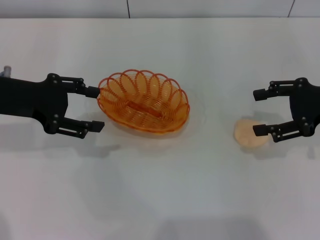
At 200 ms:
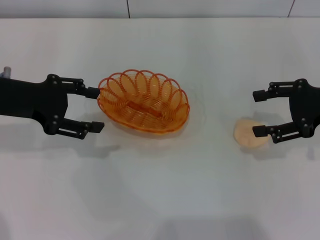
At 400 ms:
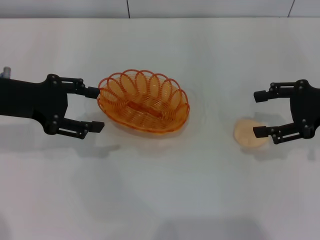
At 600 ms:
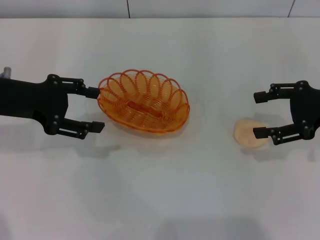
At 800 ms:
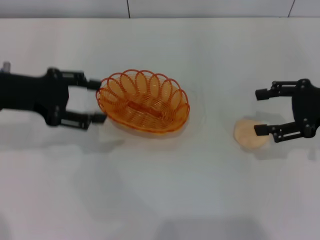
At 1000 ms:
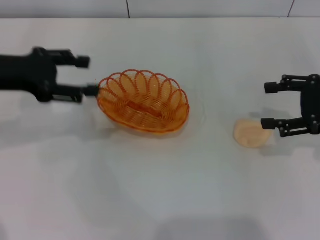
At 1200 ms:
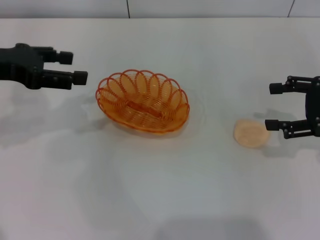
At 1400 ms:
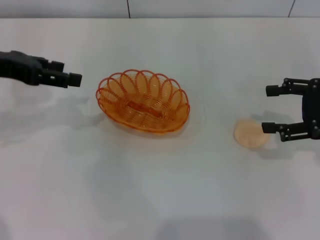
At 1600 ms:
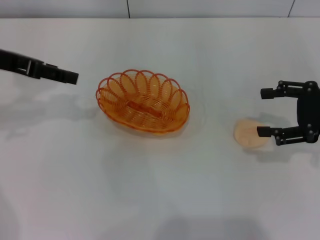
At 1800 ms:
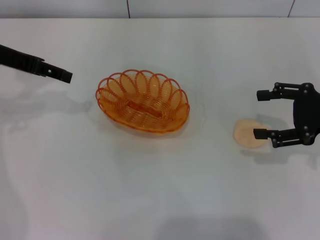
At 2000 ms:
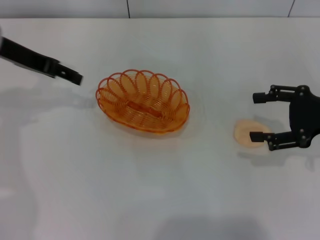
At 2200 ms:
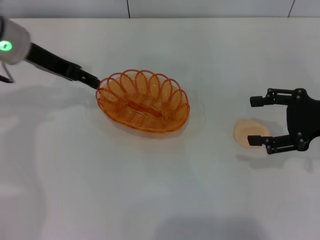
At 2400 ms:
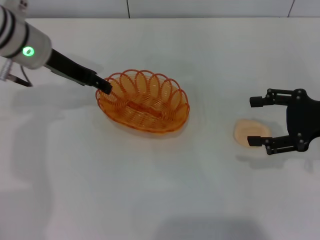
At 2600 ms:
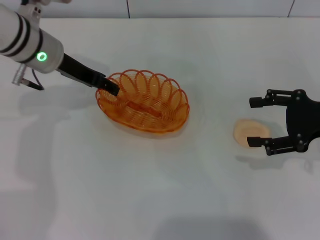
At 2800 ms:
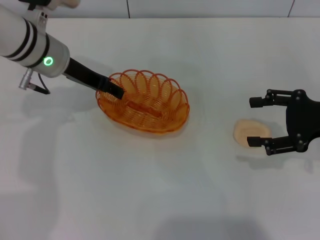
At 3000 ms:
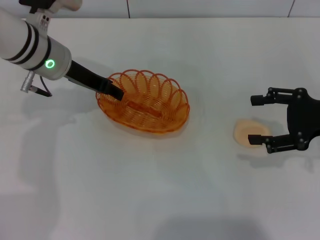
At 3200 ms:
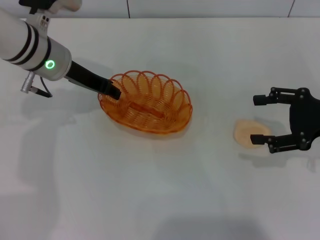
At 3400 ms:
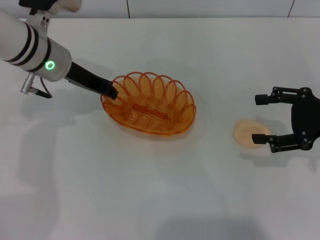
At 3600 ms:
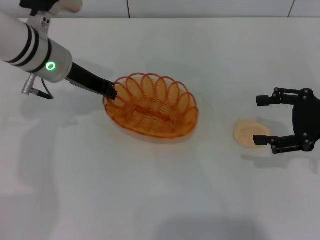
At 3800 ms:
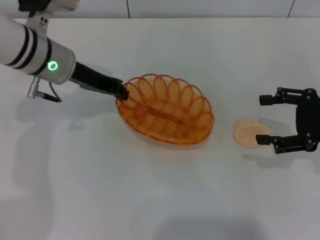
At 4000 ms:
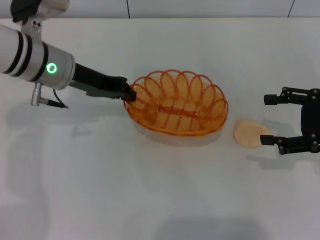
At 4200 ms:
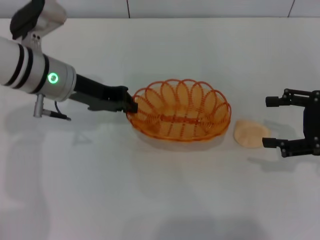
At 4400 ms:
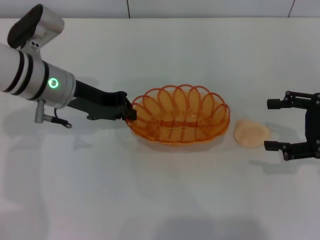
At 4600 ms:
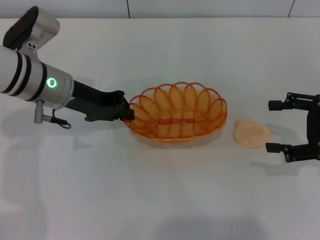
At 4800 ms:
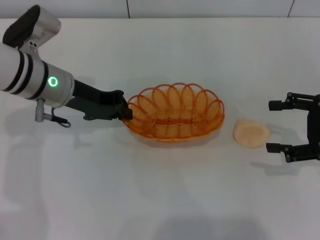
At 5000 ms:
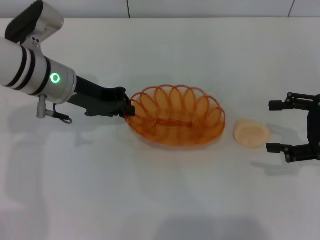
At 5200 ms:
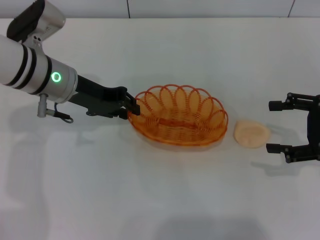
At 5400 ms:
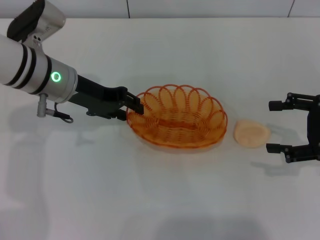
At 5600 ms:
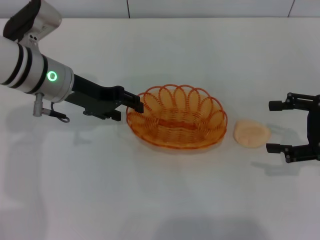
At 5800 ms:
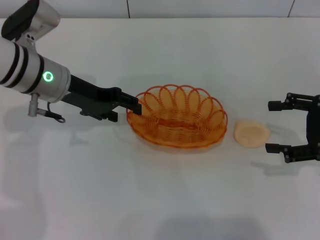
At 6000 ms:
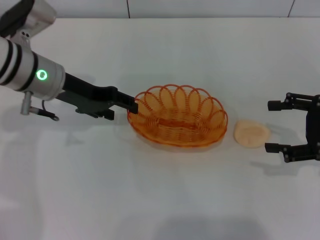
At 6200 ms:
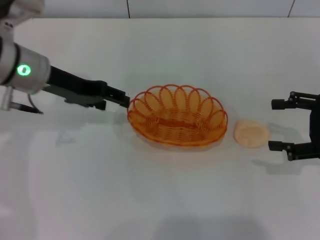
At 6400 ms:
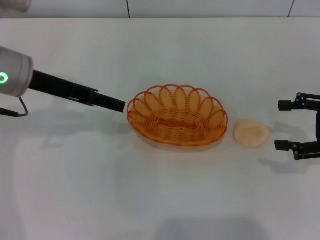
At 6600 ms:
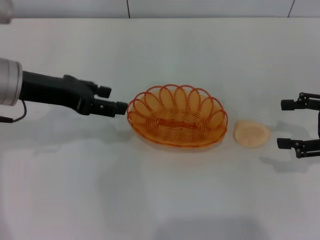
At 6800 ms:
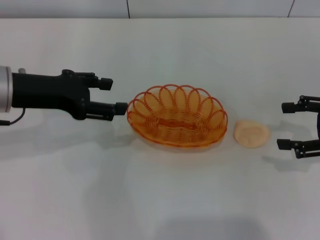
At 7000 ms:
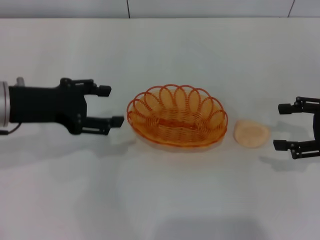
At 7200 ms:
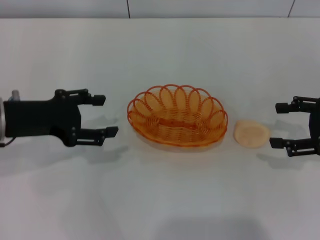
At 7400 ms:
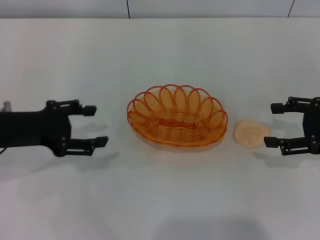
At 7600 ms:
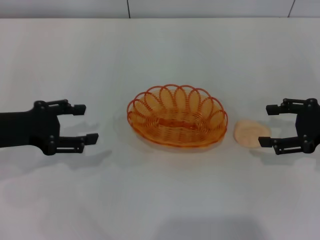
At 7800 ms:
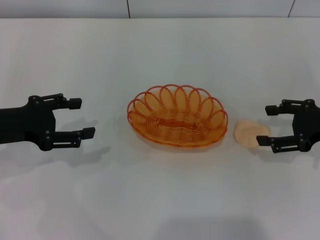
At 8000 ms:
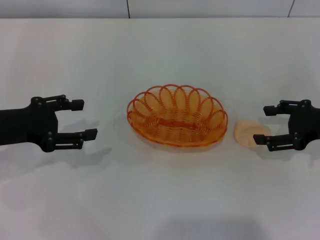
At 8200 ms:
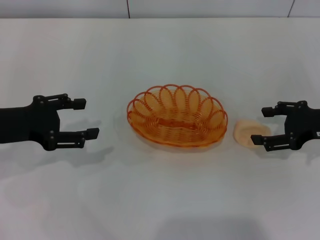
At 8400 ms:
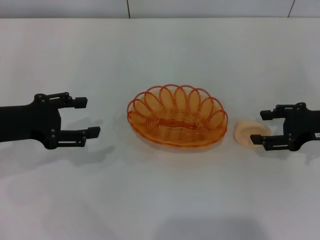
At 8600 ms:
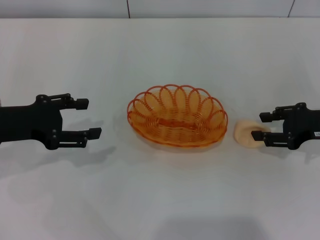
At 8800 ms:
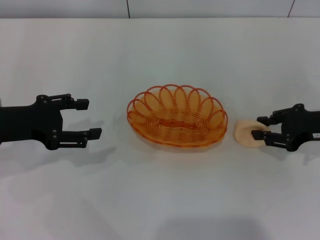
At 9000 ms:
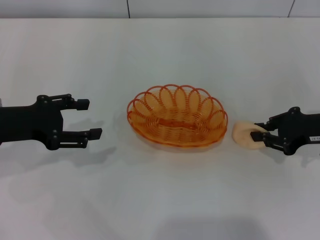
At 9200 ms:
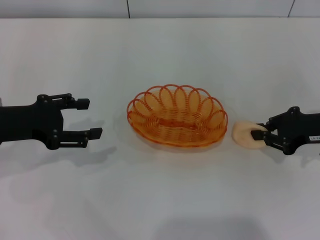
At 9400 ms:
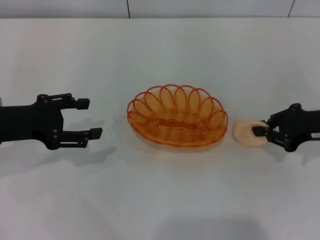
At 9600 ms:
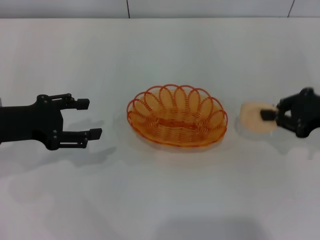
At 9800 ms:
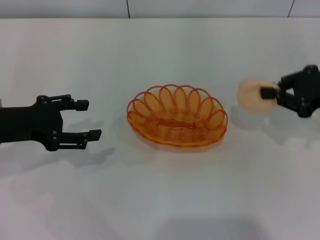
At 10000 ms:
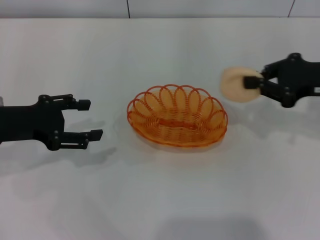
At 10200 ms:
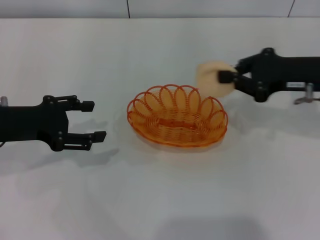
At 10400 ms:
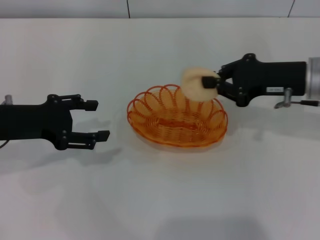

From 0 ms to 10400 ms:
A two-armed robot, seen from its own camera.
Step, from 0 ms to 4200 ms: Pick up the basket with the left gripper.
Step, from 4400 ms to 6400 ms: Place the basket in the center of view with the left gripper.
Step, from 6600 ms to 9800 ms: Pick up the egg yolk pastry with the right gripper.
From 0 ms to 1400 ms: The left gripper changes place by some 5 cm.
From 1400 ms to 3000 ms: The left gripper is displaced to the right, forward and downward by approximately 15 cm.
From 3000 ms to 4400 ms: The left gripper closes its fingers.
From 4400 ms to 6000 ms: The left gripper opens its fingers.
From 6000 ms to 7400 ms: The left gripper travels backward and to the left by approximately 10 cm.
From 7400 ms to 9000 ms: The right gripper closes its fingers.
From 9000 ms to 10400 ms: The right gripper is displaced to the left by about 5 cm.

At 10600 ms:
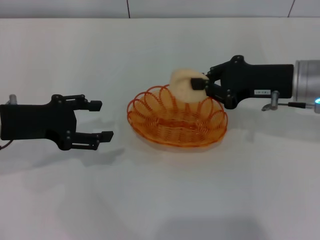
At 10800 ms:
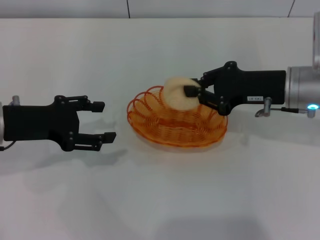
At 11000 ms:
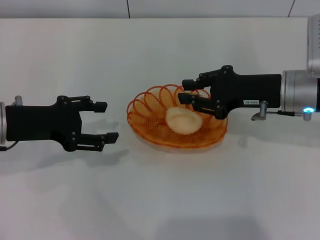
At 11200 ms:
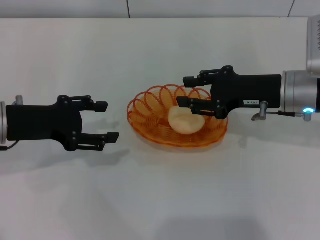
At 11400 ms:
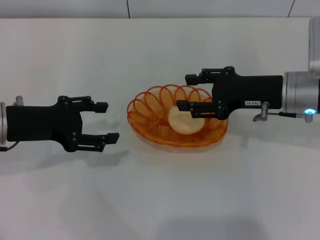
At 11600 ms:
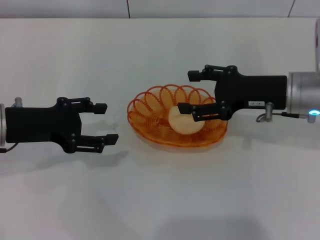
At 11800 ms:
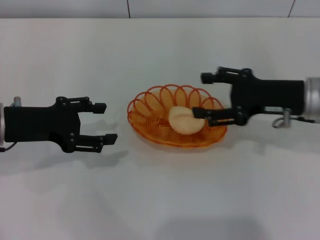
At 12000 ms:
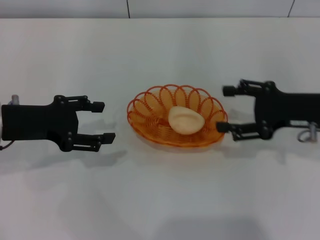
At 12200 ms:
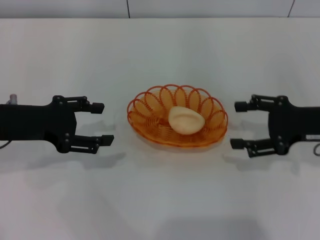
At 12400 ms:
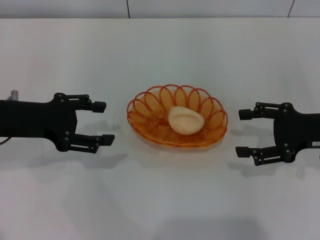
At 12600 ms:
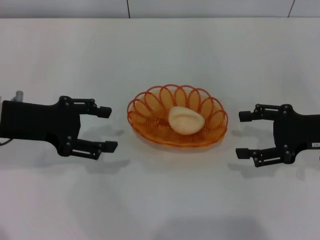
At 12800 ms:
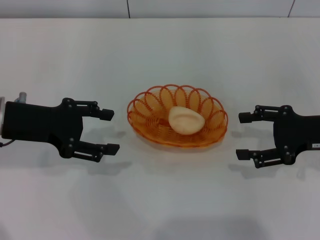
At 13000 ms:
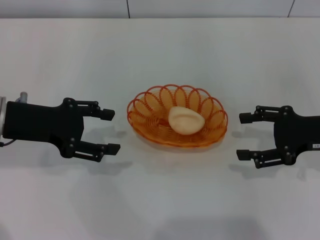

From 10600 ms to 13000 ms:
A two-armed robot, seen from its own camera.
Step, from 10600 ms to 12000 ms: Place the egg yolk pastry into the basket with the right gripper.
From 10600 ms to 11800 ms: The right gripper opens.
From 11800 ms to 13000 ms: The right gripper shifts about 5 cm to the right.
